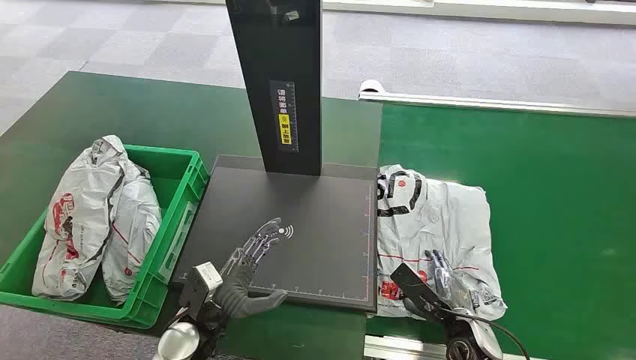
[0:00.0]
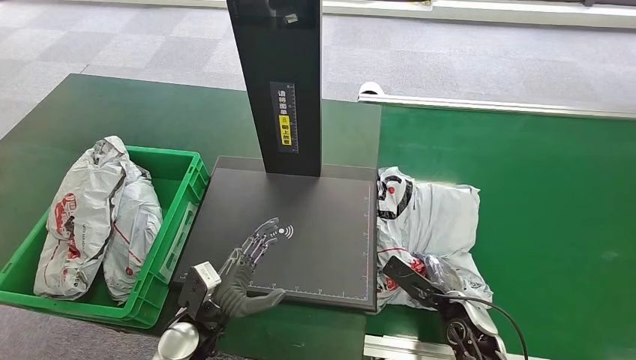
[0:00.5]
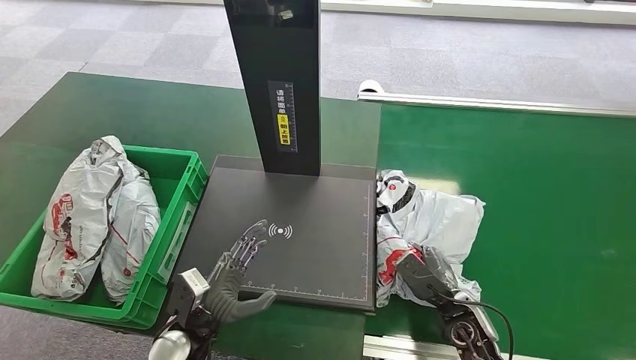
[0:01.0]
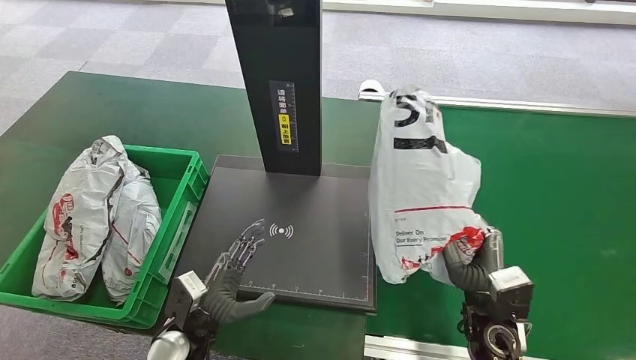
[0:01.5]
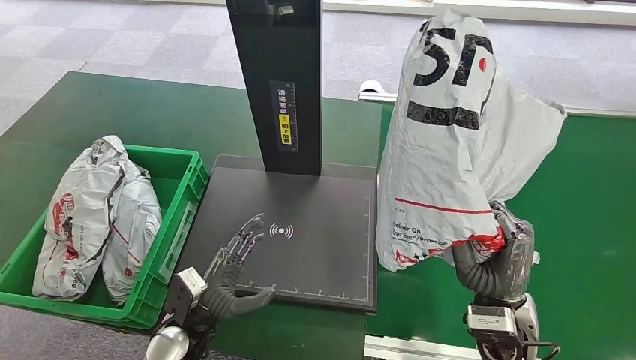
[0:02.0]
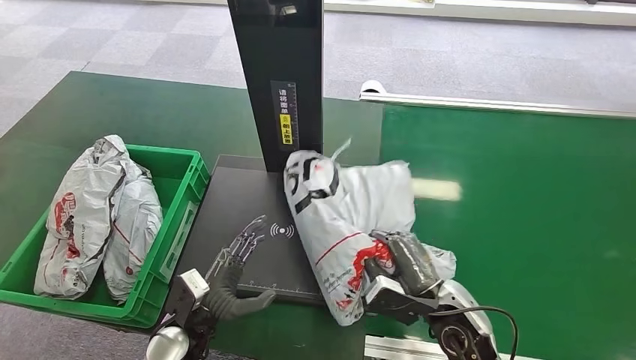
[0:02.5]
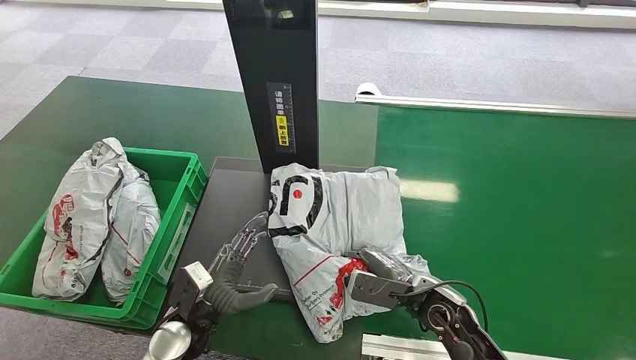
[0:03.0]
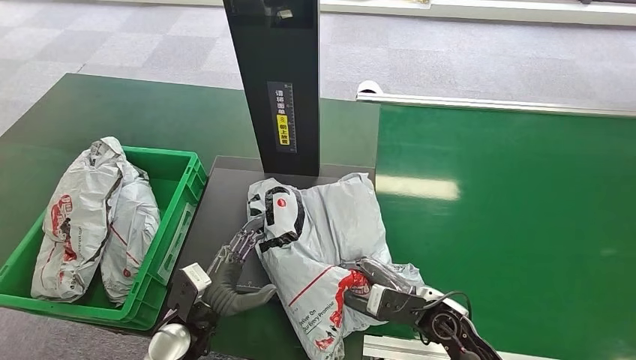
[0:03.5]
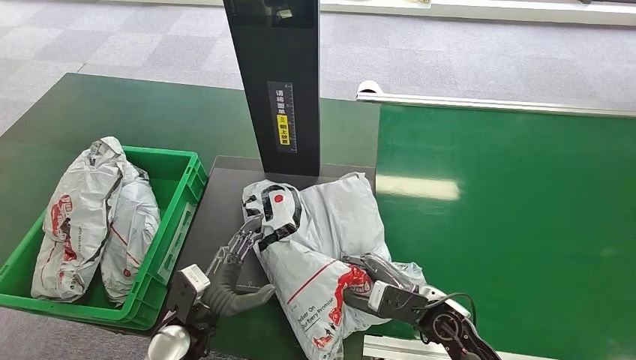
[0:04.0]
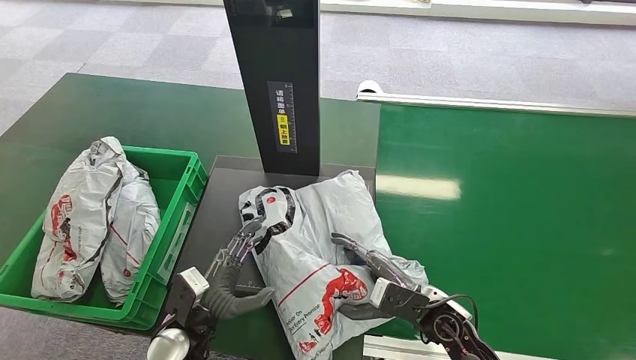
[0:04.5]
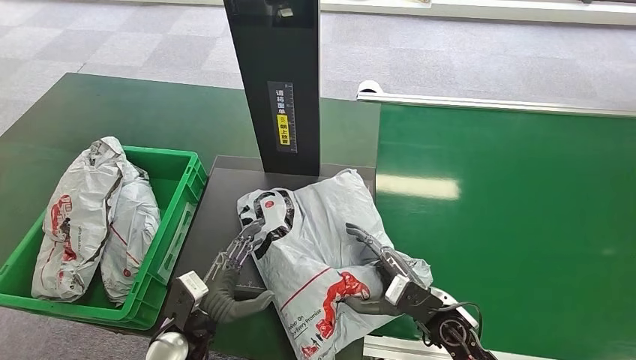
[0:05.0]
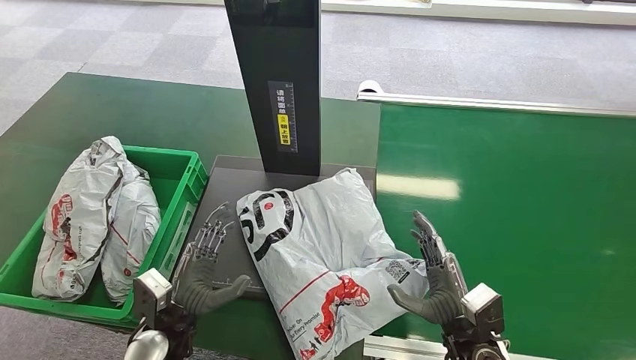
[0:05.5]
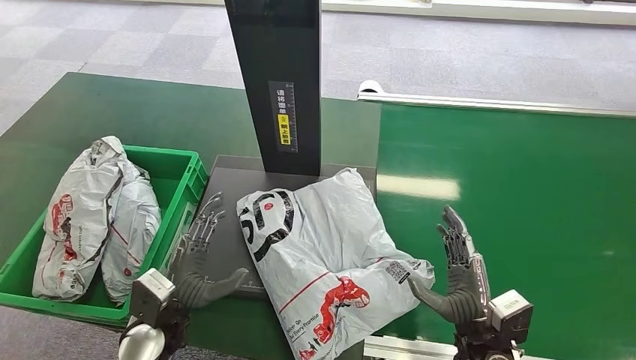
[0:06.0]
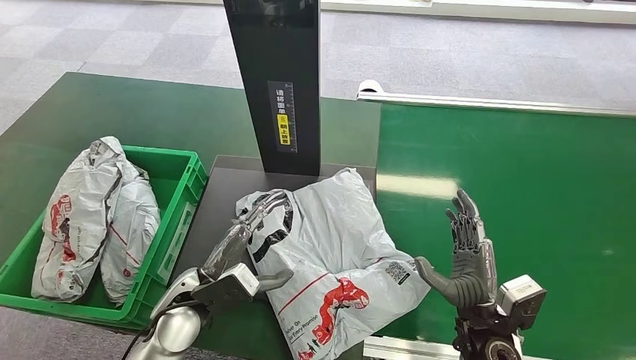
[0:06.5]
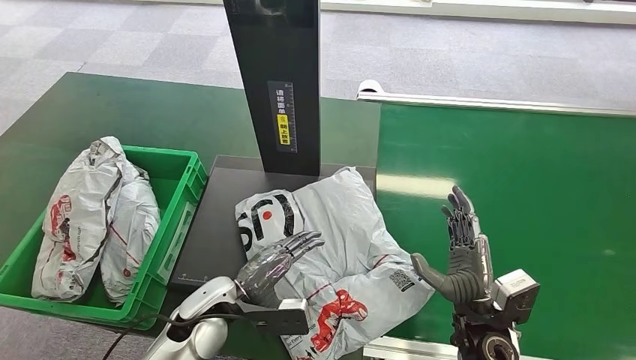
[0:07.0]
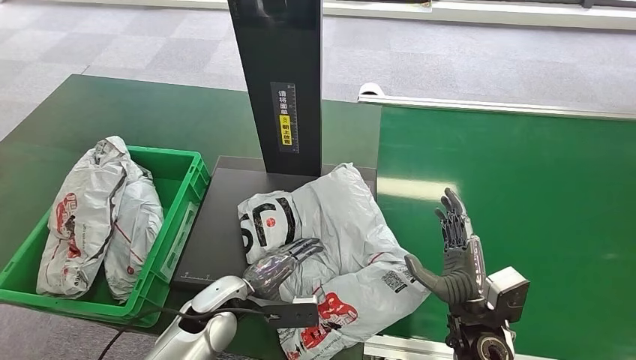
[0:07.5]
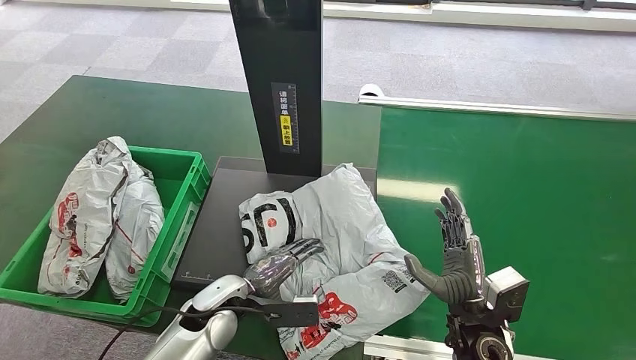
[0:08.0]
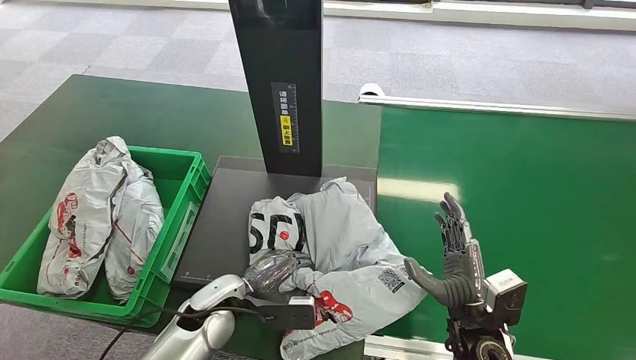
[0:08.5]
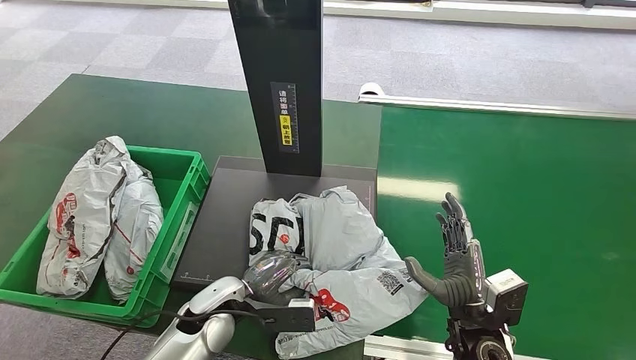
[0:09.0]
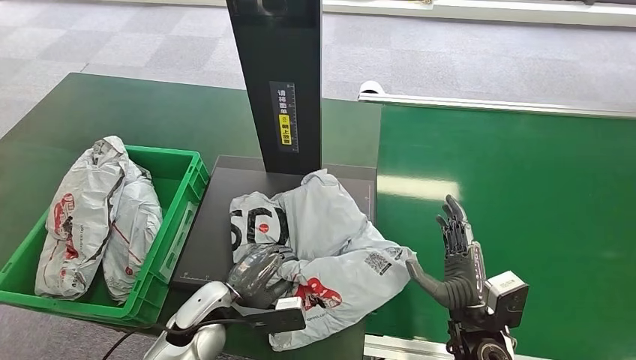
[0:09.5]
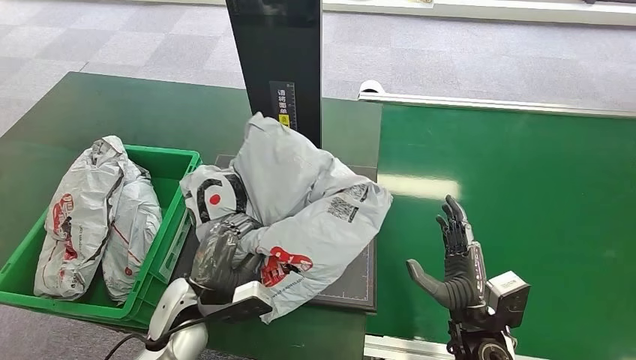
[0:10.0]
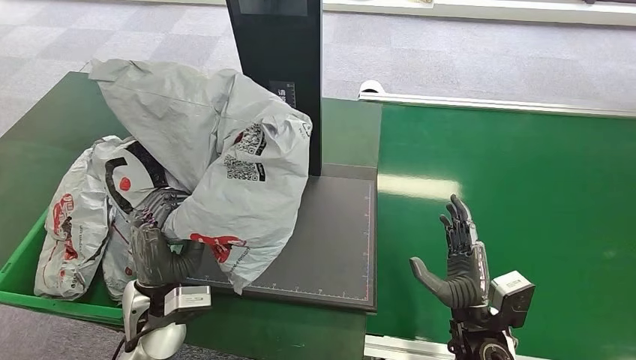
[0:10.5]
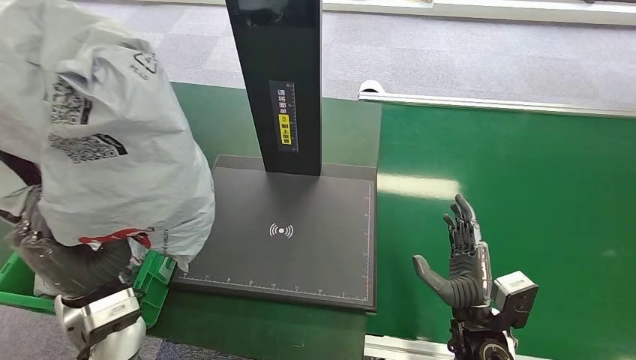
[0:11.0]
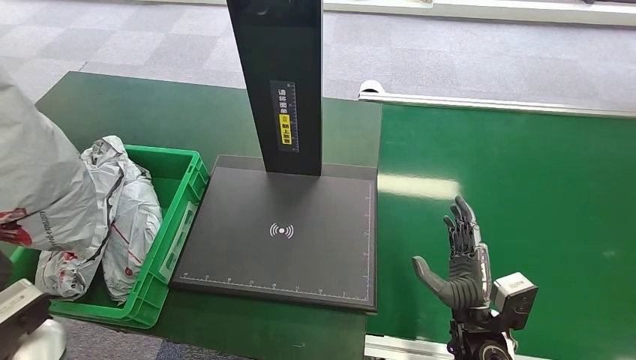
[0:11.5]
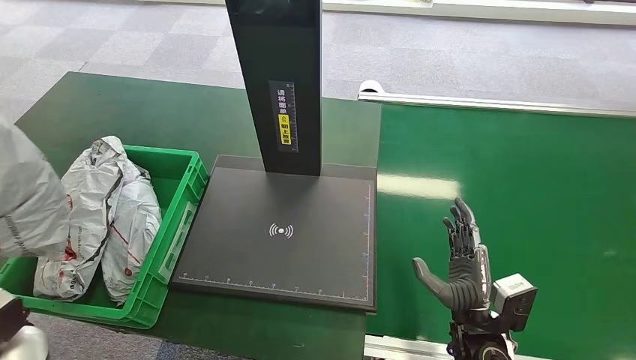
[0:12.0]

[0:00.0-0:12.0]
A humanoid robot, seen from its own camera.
Task of the whole recording: Weigh the package on the weighing device and place it in the left basket.
Step, 0:00.0 to 0:01.5: Pick up the package from the conveyor belt.
Step, 0:02.0 to 0:05.5: Place the package onto the inbound machine.
Step, 0:06.0 to 0:09.5: Pick up the package from the inbound machine.
0:04.0 to 0:06.0: The right hand heads backward, covering some 5 cm.
0:10.0 to 0:12.0: The left hand goes some 20 cm to the left and upward.

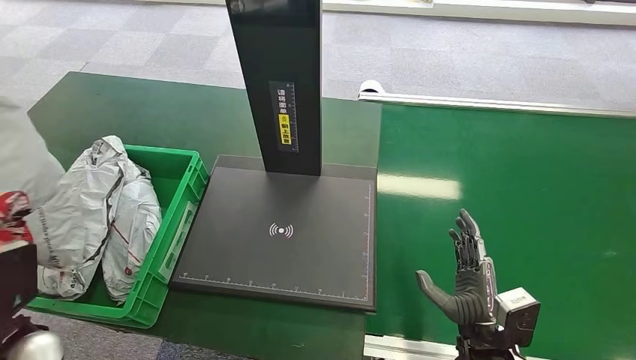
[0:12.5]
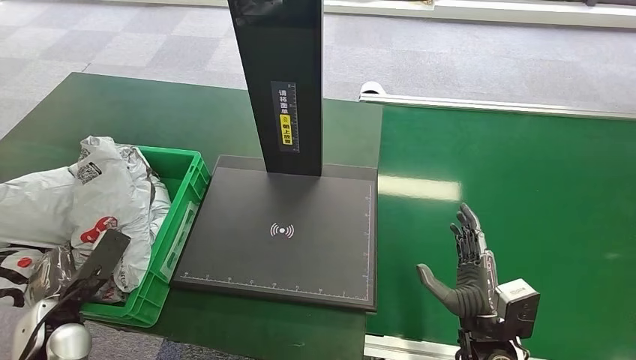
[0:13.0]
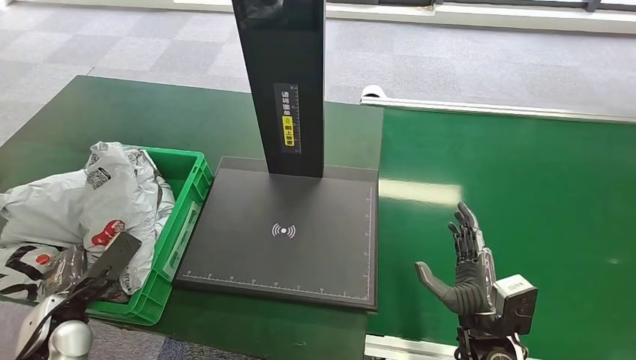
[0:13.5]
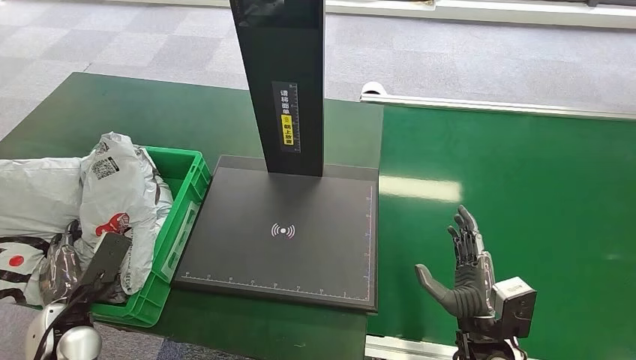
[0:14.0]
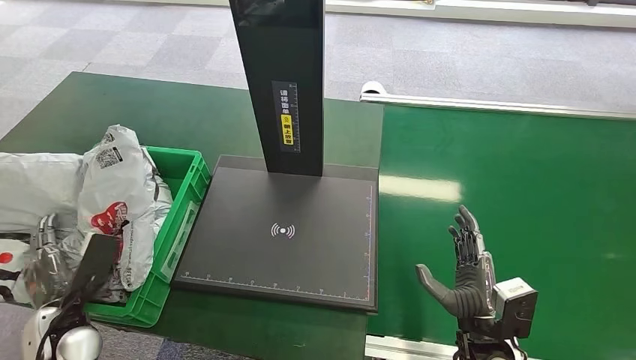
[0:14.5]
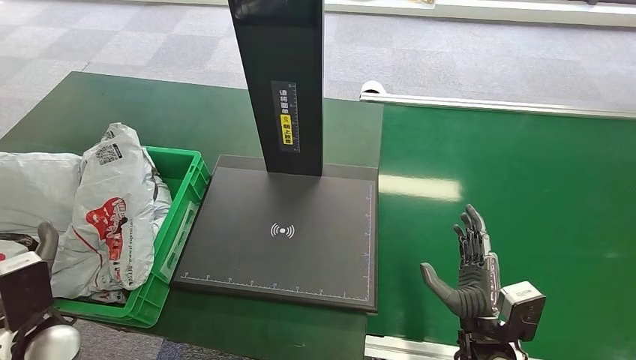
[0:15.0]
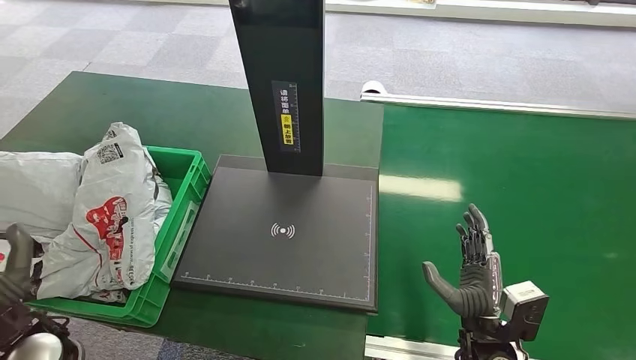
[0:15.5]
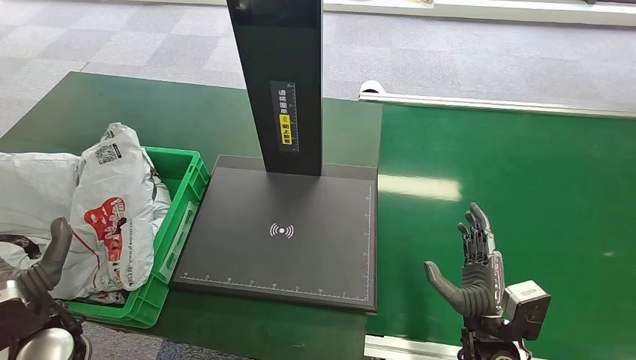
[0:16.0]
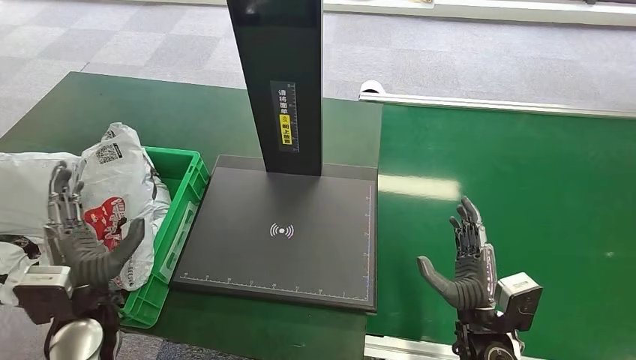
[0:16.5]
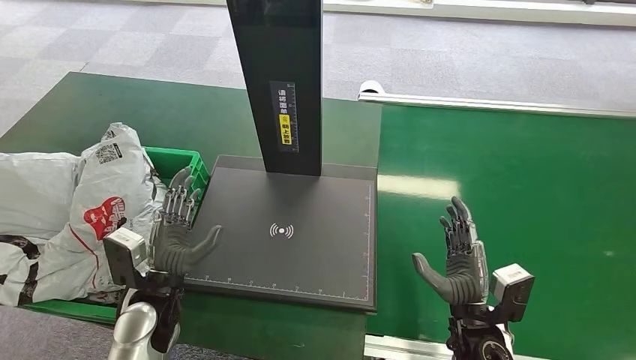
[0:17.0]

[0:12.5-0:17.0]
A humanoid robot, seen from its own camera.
Task of the whole recording: Weigh the package on the weighing device and place it in the left basket.
Step, 0:12.5 to 0:17.0: Place the package into the parcel locker.
0:12.5 to 0:14.5: The left hand heads downward, covering some 5 cm.
0:14.5 to 0:17.0: The left hand goes roughly 15 cm to the right.
